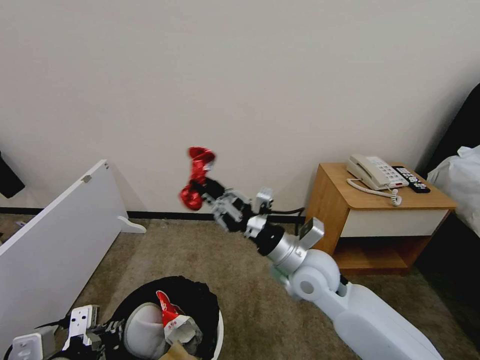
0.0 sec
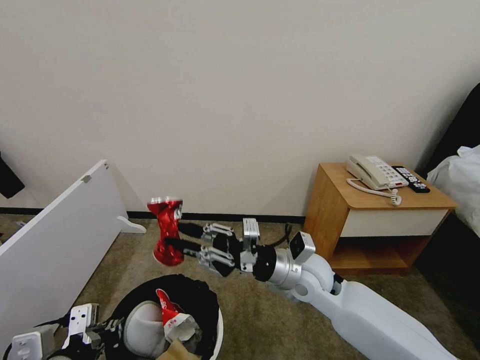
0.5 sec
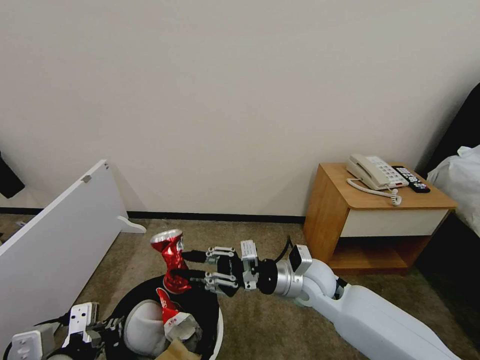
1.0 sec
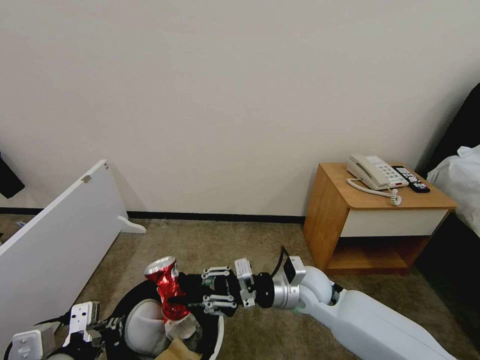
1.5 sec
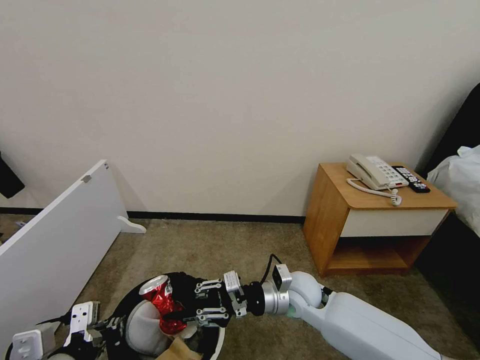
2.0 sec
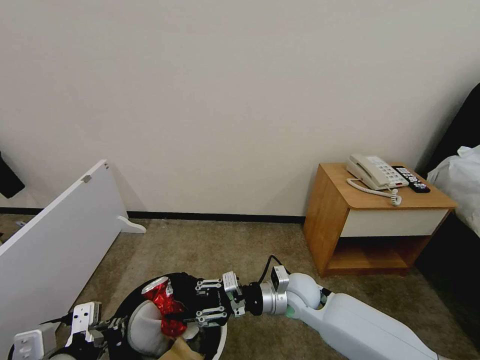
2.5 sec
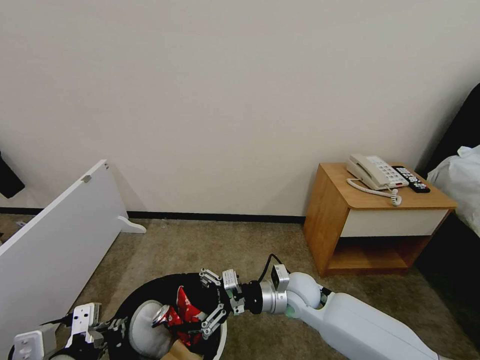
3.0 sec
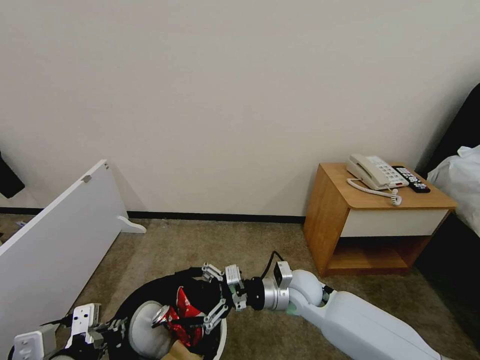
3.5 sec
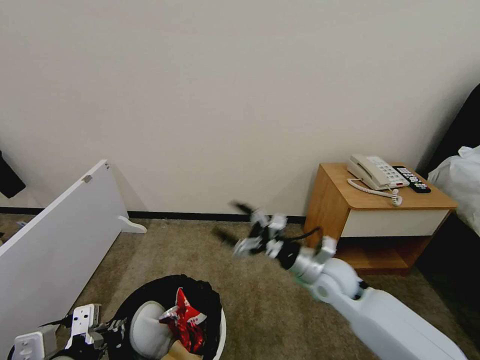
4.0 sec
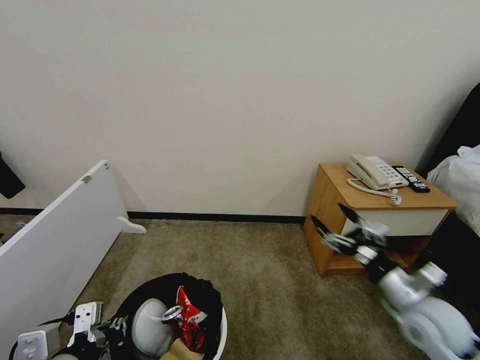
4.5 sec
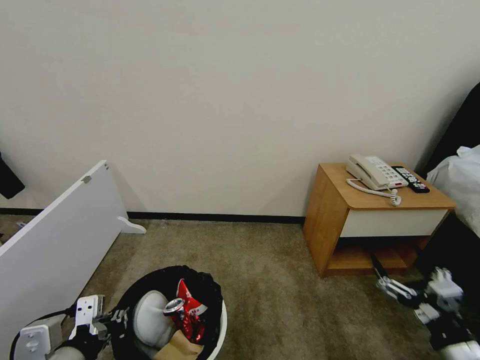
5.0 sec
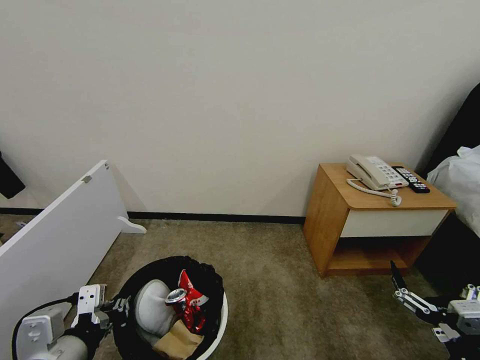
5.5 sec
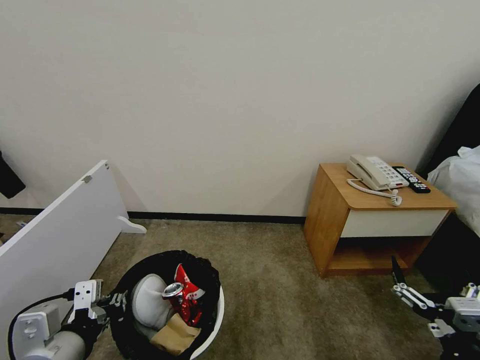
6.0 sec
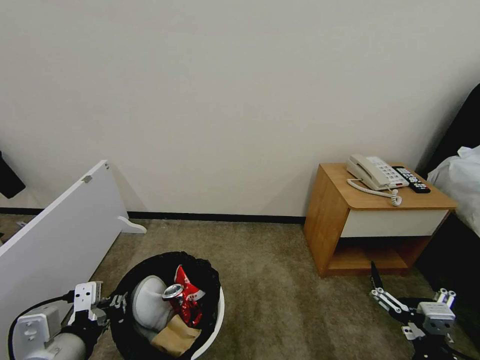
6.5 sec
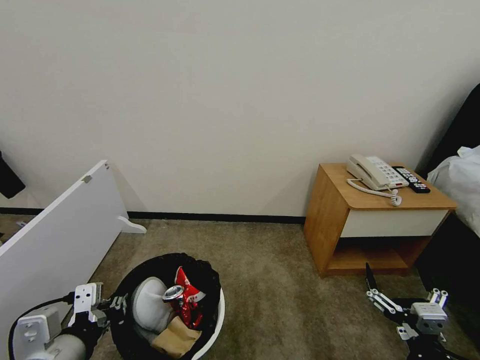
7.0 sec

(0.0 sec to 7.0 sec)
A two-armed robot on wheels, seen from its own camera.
Task of the whole recording: Pick up the trash bin, then pick up the garbage from the floor and place it into the trash bin.
0.0 sec - 2.0 sec: The right gripper shifts approximately 10 cm downward.
2.0 sec - 3.5 sec: The right gripper opens.
3.5 sec - 5.0 sec: The right gripper moves to the right and backward, about 35 cm.
5.0 sec - 7.0 sec: The right gripper heads to the left, covering approximately 5 cm.
